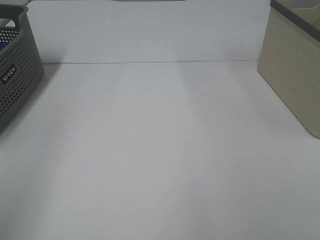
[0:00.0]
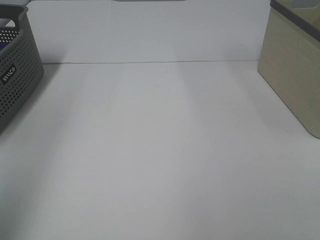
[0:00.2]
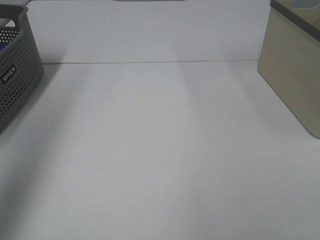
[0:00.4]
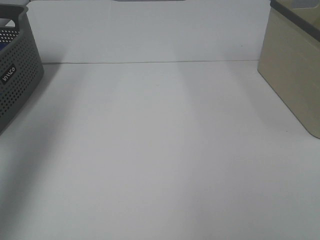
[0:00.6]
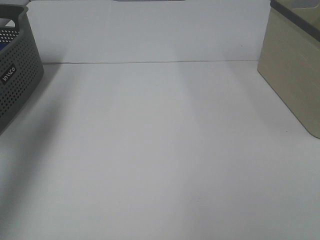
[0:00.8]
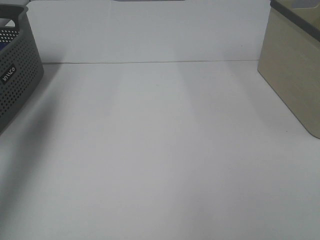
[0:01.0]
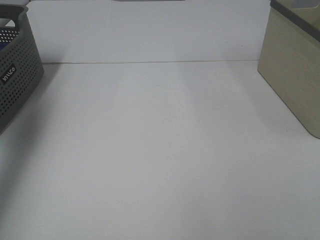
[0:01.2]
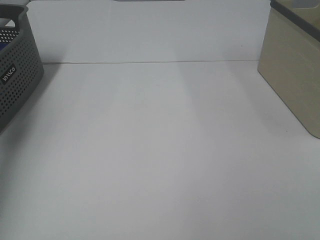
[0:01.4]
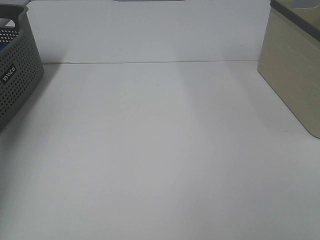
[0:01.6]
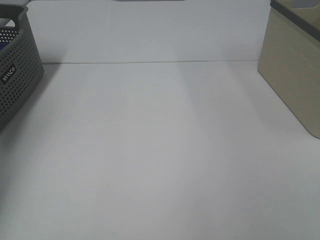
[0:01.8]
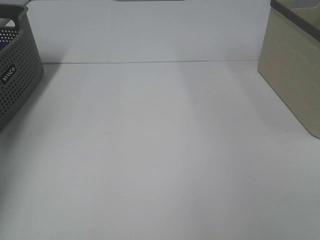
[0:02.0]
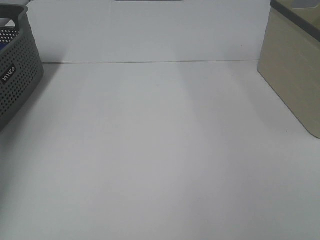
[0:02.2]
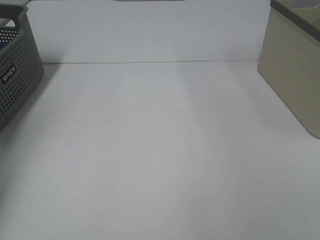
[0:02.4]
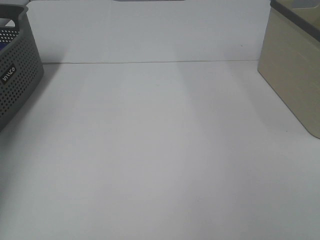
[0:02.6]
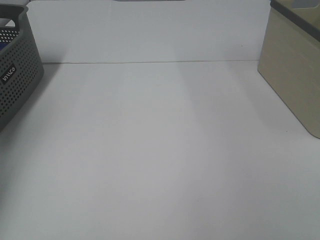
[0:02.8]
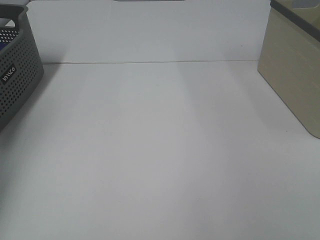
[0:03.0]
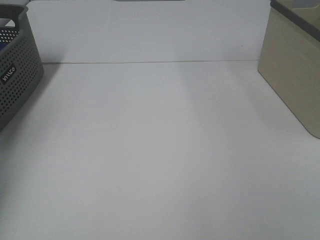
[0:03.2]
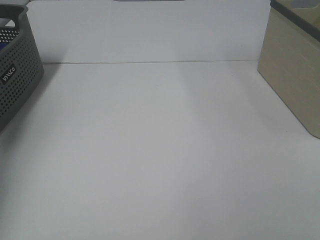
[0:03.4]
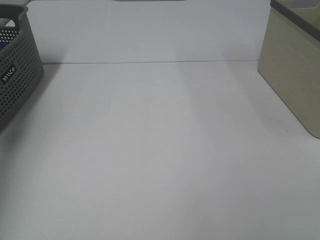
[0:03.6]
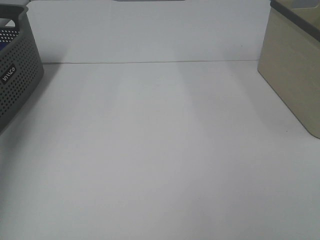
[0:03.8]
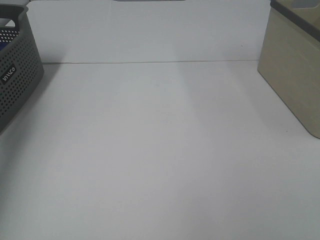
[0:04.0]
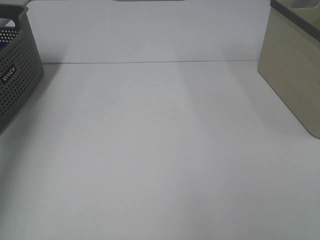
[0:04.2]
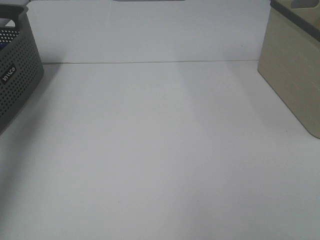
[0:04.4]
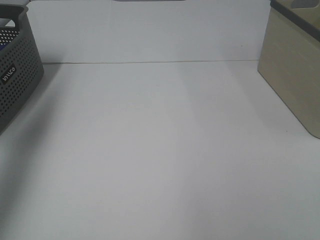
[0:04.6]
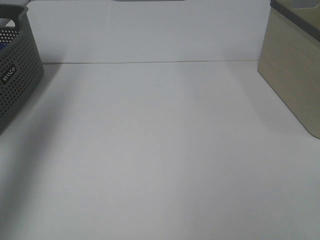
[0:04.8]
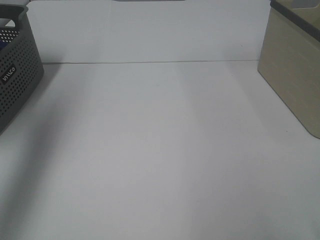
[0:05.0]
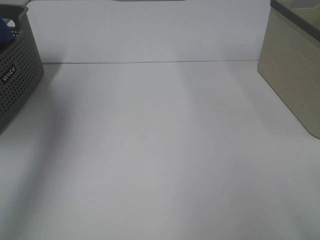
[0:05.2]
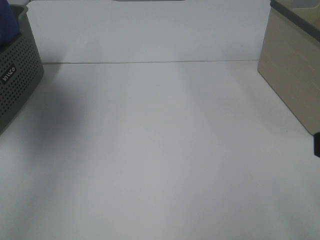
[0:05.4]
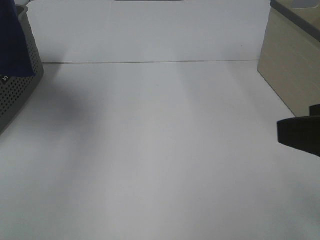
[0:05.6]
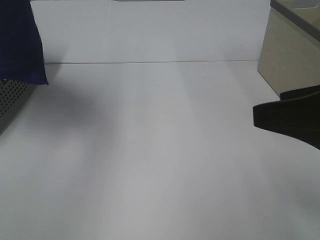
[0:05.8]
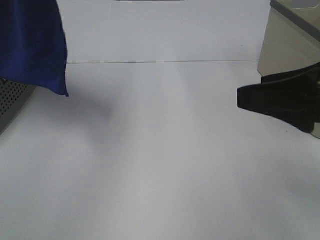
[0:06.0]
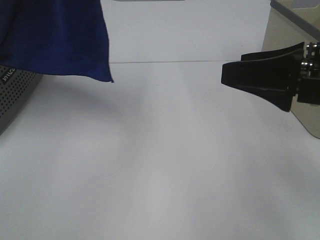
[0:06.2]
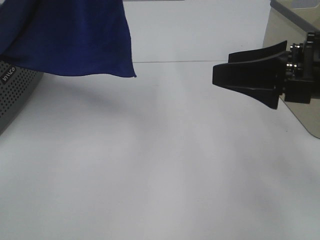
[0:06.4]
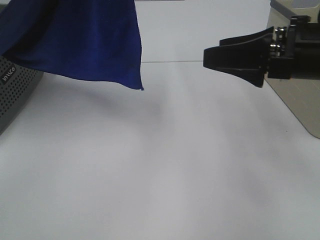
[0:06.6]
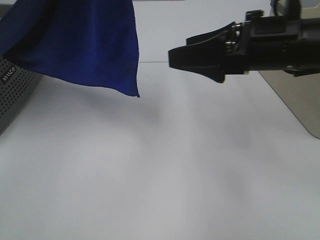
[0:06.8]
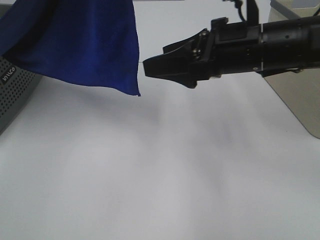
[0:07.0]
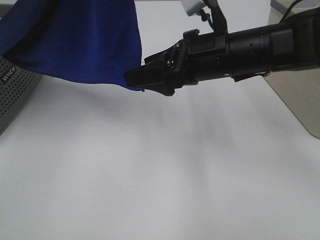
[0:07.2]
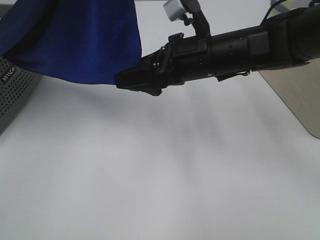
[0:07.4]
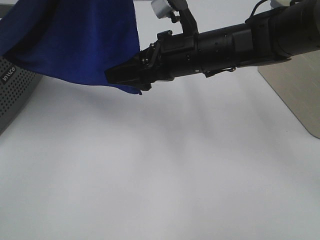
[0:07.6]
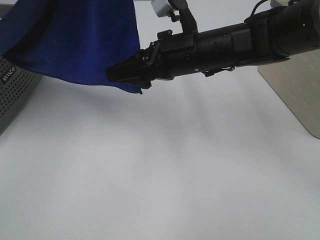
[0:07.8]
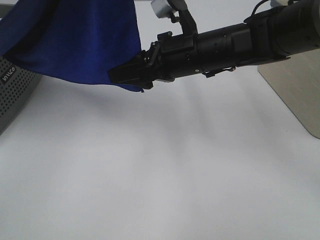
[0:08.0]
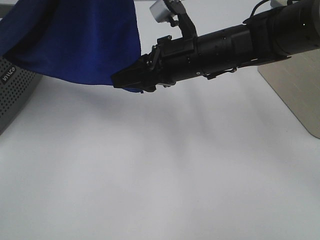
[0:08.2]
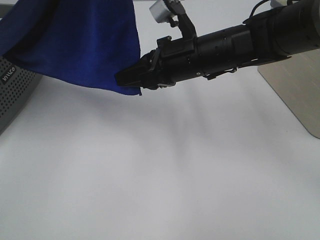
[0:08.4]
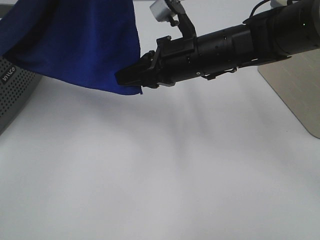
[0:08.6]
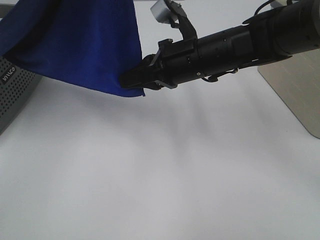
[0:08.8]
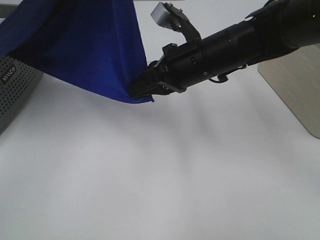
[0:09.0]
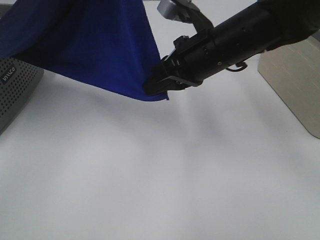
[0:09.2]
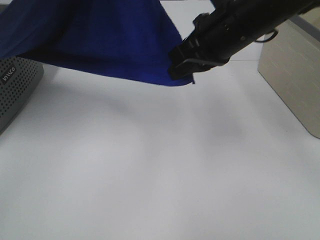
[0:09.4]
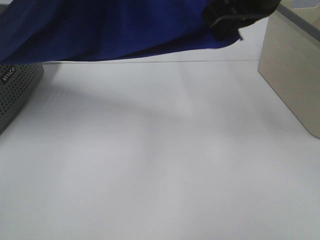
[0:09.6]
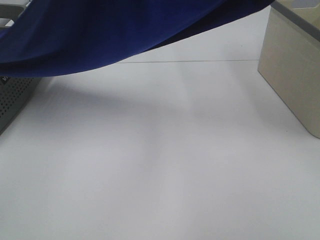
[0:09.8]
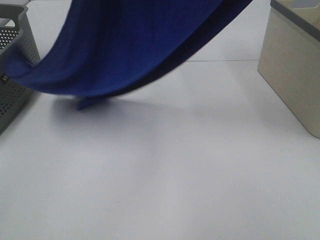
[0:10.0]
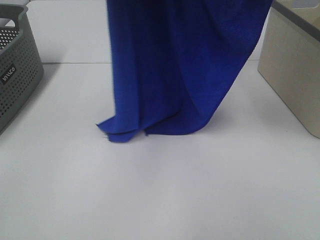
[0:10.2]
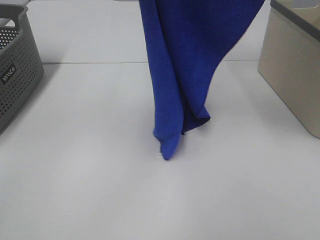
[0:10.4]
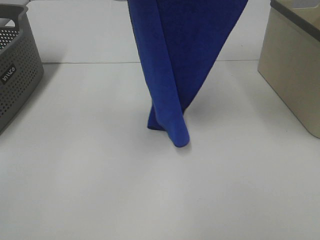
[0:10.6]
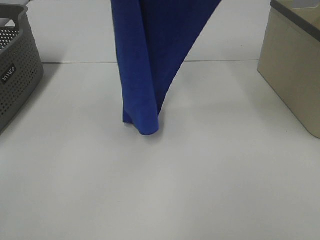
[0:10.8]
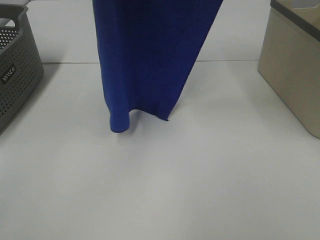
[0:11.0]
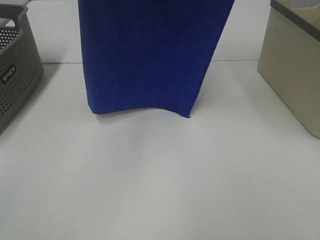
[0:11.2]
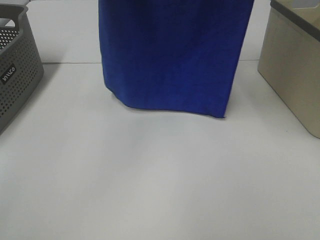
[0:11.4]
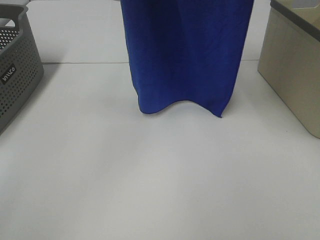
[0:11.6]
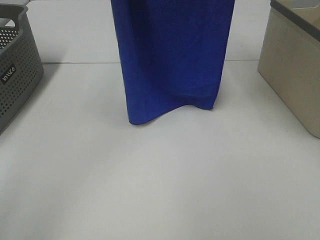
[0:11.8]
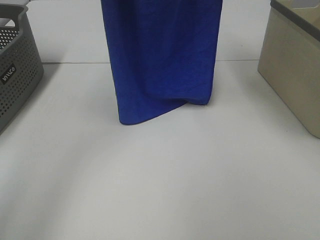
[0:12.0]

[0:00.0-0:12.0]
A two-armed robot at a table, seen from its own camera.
Task of the whole recording: Remove the towel and place it.
Step, 0:04.6 to 0:08.4: Right hand: grab a corner of the blue towel and straighten it.
0:00.0 to 0:01.6: The left gripper heads forward and downward, covering roughly 35 cm.
0:03.0 to 0:04.4: The left gripper heads upward and backward, covering approximately 25 cm.
0:04.4 to 0:06.0: The right gripper goes about 15 cm forward. The left gripper goes about 20 cm to the right.
0:06.0 to 0:07.6: The left gripper shifts approximately 5 cm to the right; the right gripper moves forward and to the left, about 25 cm.
0:07.6 to 0:09.0: The right gripper closes up.
0:09.0 to 0:10.4: The right gripper travels upward by some 25 cm.
0:10.4 to 0:12.0: The two grippers go roughly 10 cm forward.

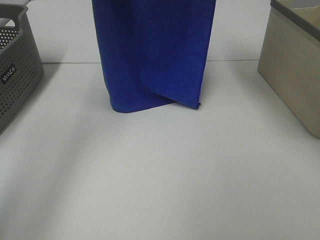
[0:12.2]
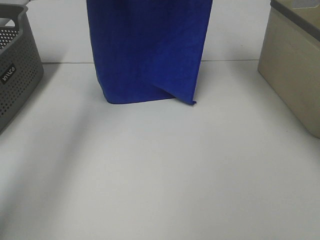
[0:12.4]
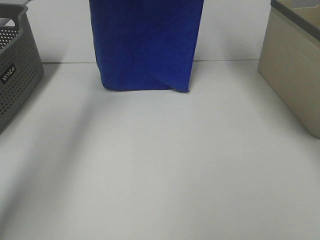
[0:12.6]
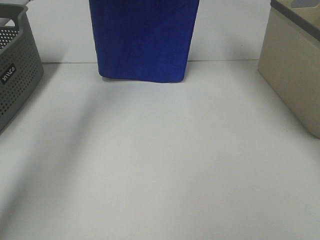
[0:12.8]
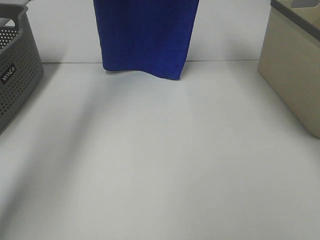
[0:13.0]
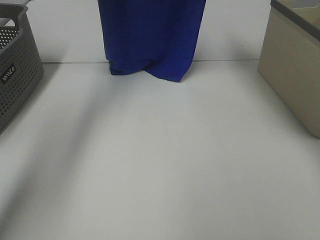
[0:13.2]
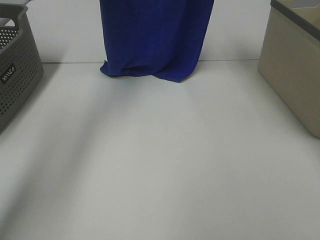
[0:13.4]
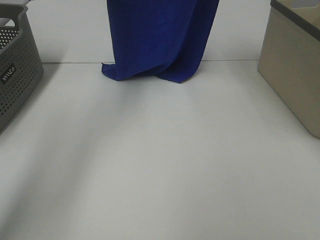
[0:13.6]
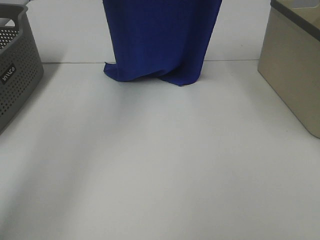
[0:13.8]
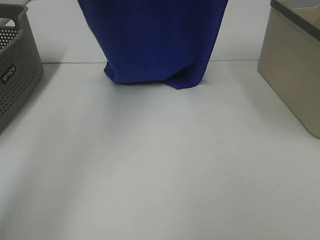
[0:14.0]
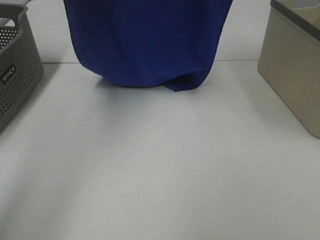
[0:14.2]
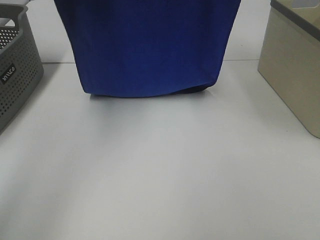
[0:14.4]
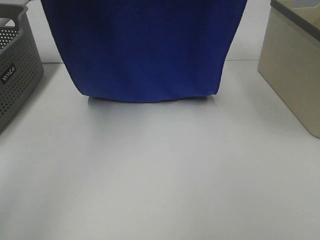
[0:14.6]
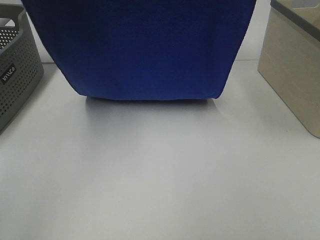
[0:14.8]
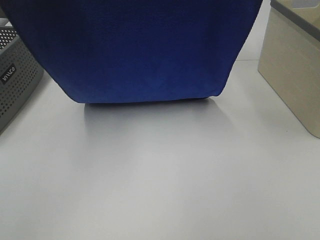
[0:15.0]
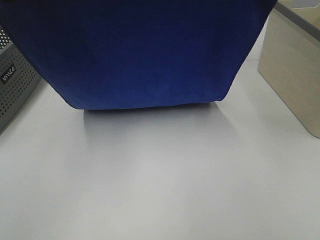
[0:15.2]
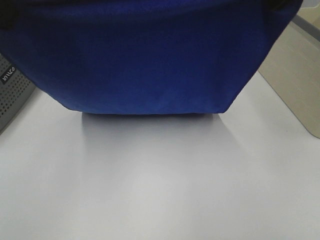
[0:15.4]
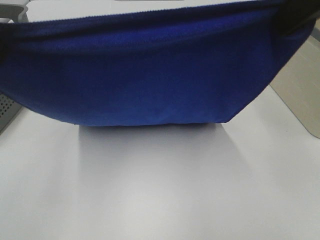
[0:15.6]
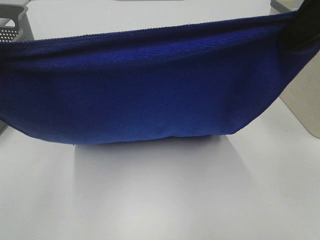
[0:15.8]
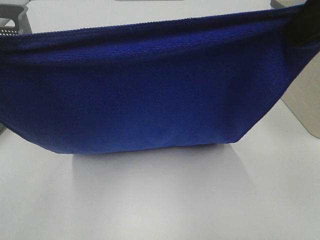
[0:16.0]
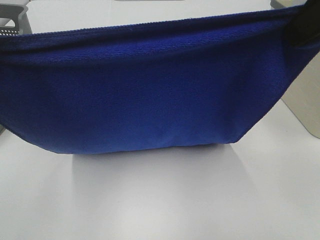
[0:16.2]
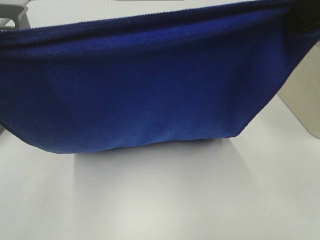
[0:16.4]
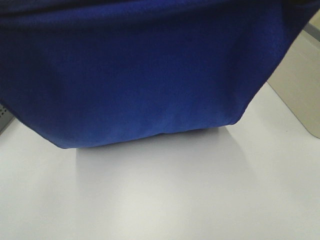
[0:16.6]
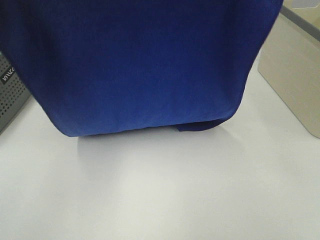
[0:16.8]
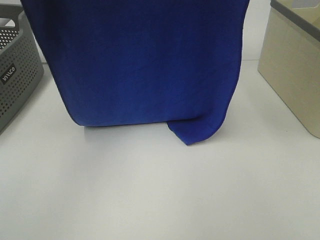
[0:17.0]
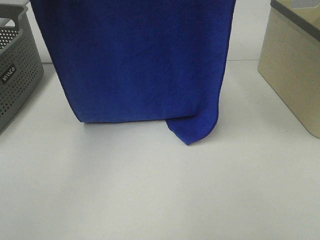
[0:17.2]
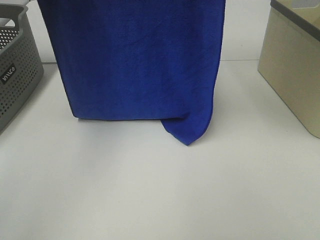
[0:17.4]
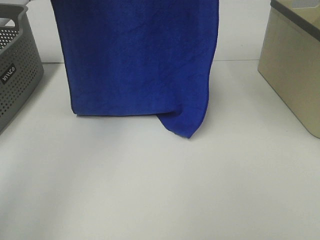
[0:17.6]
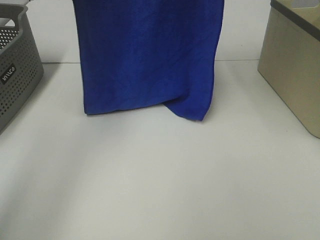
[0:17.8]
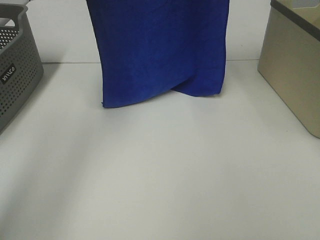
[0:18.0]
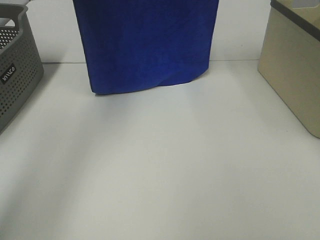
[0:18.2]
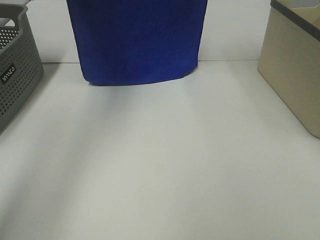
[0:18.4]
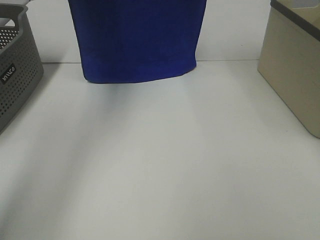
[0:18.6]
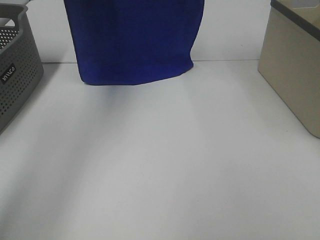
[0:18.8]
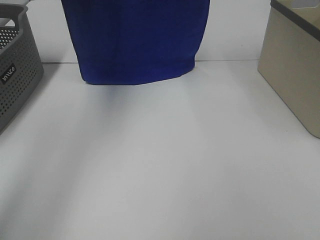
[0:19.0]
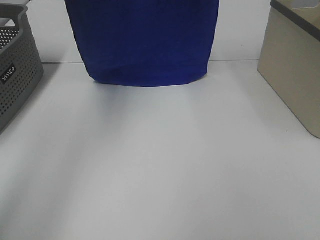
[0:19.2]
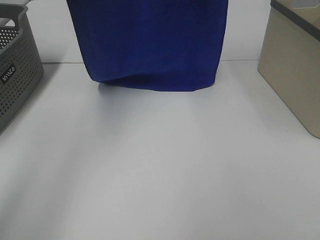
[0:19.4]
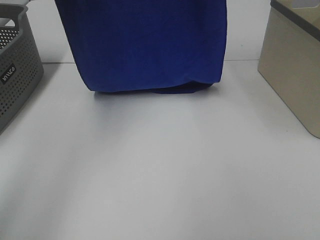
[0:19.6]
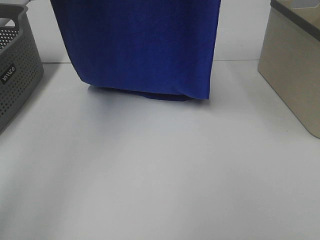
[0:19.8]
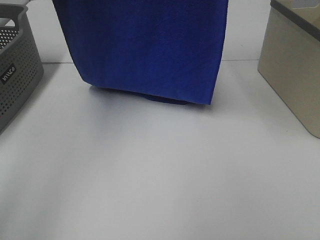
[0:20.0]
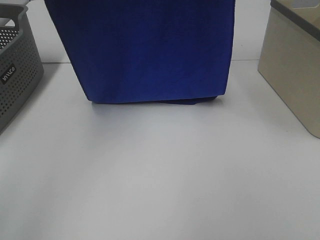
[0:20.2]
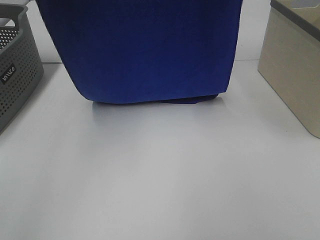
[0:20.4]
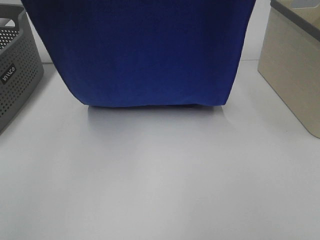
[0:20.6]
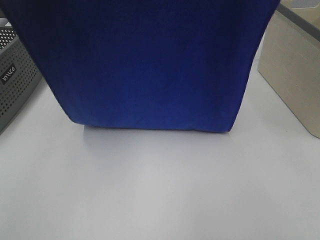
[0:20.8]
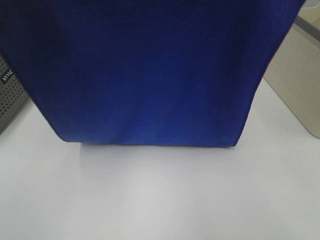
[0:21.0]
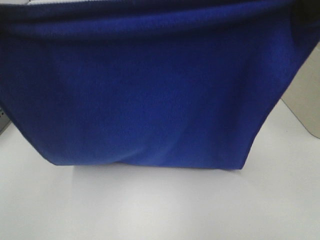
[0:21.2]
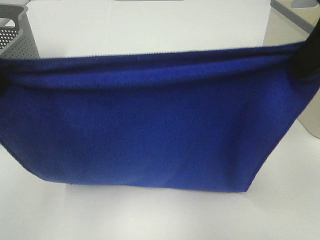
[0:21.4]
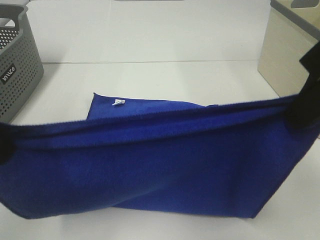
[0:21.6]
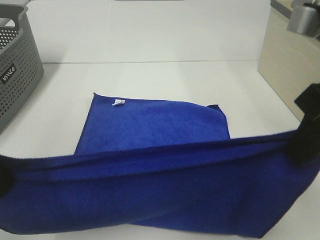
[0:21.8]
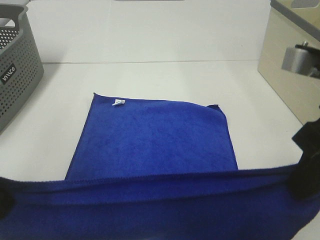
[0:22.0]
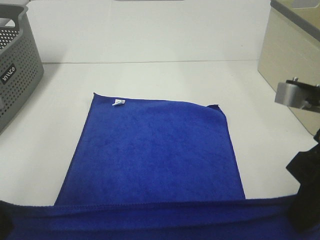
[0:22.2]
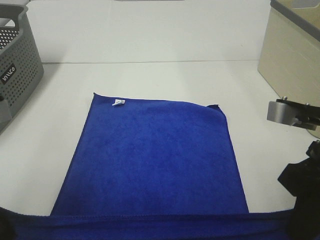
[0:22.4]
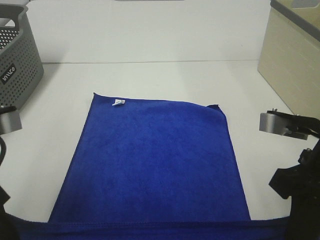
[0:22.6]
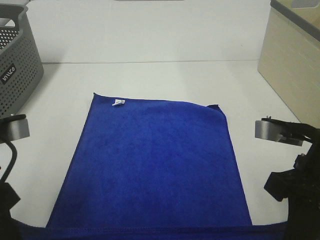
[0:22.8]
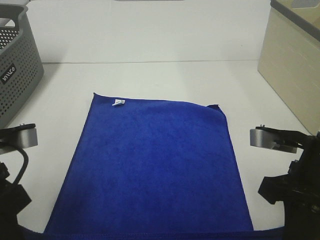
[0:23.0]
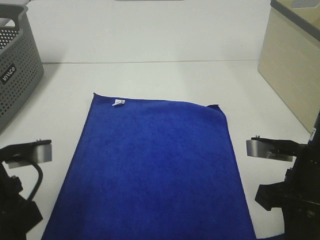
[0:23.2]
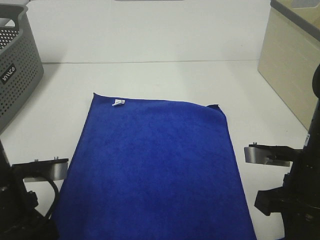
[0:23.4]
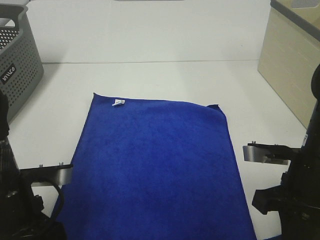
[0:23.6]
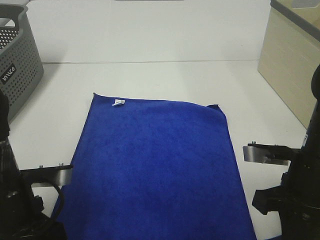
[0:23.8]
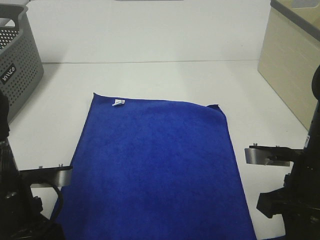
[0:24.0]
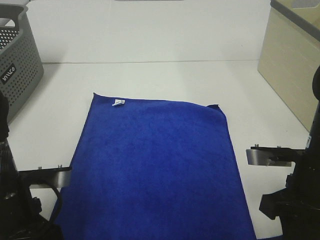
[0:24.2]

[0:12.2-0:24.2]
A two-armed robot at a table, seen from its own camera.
Task of the whole recording: Remove the towel and place it.
Step, 0:12.2 to 0:19.0: Left hand: spread the blue towel flat on the table.
Step, 0:12.2 to 0:19.0: Right hand: spread the blue towel flat on the table.
0:12.2 to 0:13.8: The left gripper goes forward and returns, approximately 10 cm each way; the right gripper travels forward and back again, roughly 5 cm each way.
0:13.8 to 0:15.2: The right gripper heads backward and downward, covering some 15 cm; the left gripper heads backward, covering about 20 cm.
0:15.2 to 0:16.6: The two grippers go about 5 cm backward.
0:16.6 to 0:18.2: The grippers both shift forward by some 25 cm.
0:18.2 to 0:19.8: The two grippers go about 10 cm backward.
0:19.8 to 0:21.2: The grippers both shift backward and downward by roughly 20 cm.
0:21.2 to 0:22.6: Both grippers travel together downward, roughly 20 cm.
0:22.6 to 0:24.2: The grippers both shift downward by approximately 5 cm. The right gripper opens its fingers.
